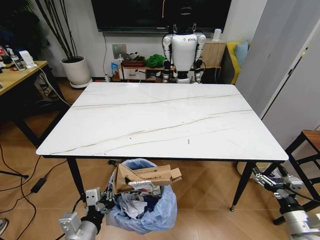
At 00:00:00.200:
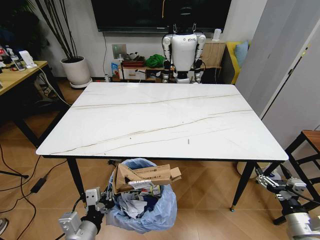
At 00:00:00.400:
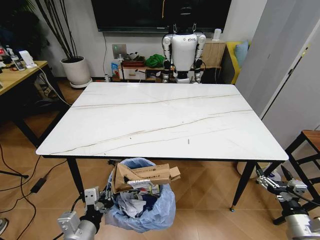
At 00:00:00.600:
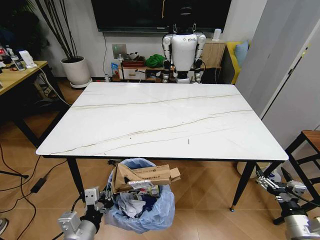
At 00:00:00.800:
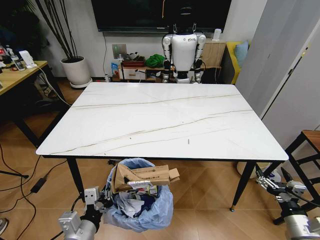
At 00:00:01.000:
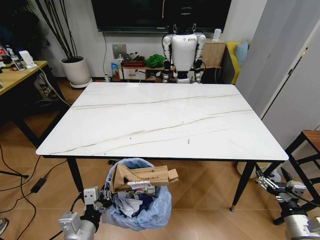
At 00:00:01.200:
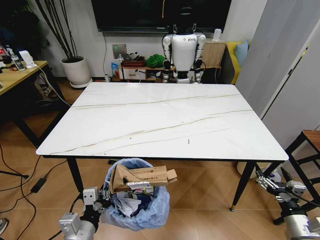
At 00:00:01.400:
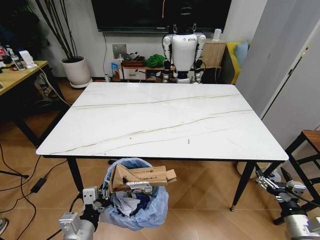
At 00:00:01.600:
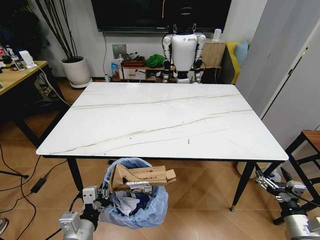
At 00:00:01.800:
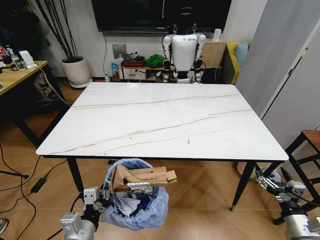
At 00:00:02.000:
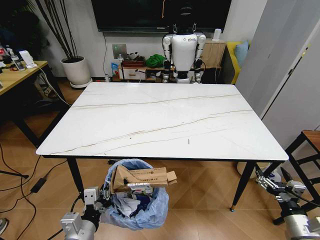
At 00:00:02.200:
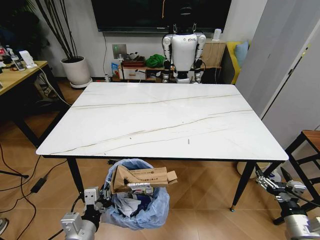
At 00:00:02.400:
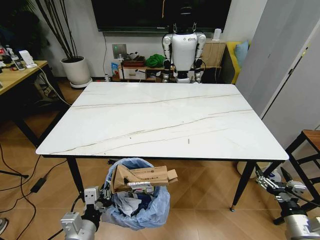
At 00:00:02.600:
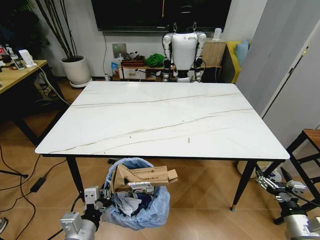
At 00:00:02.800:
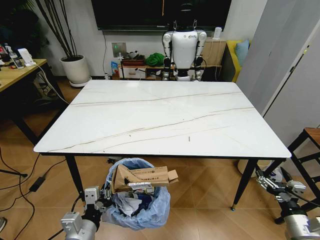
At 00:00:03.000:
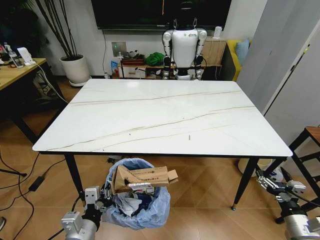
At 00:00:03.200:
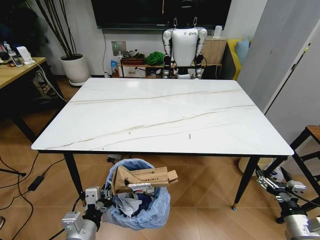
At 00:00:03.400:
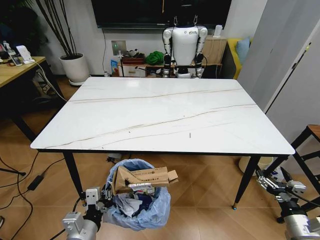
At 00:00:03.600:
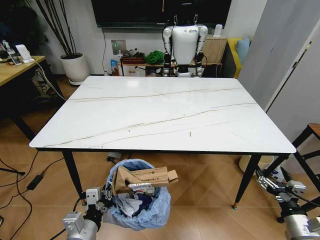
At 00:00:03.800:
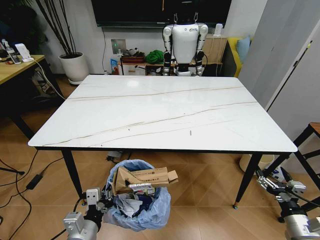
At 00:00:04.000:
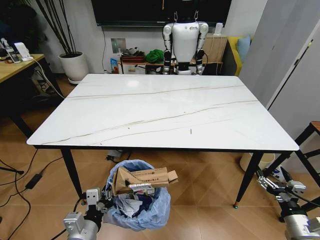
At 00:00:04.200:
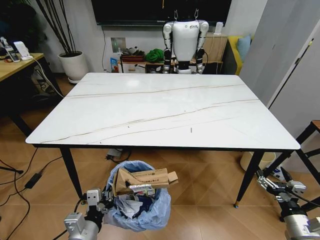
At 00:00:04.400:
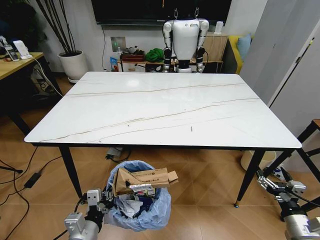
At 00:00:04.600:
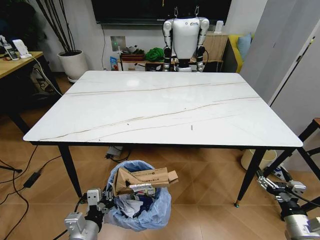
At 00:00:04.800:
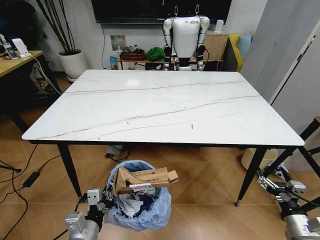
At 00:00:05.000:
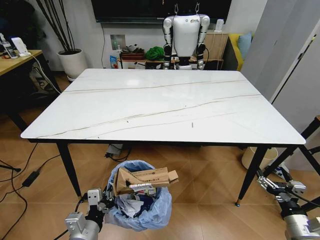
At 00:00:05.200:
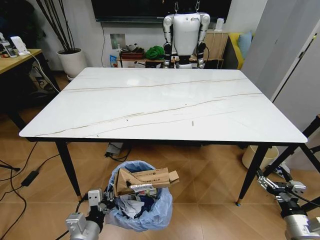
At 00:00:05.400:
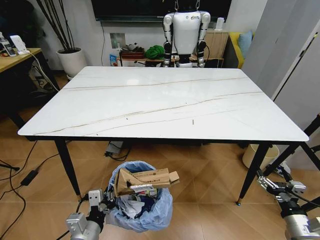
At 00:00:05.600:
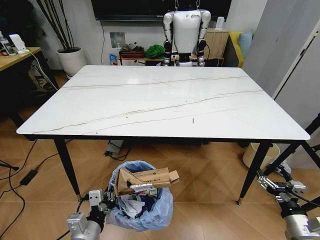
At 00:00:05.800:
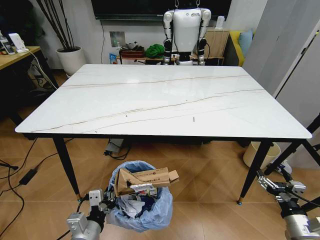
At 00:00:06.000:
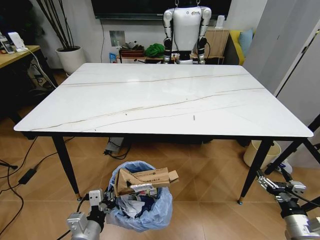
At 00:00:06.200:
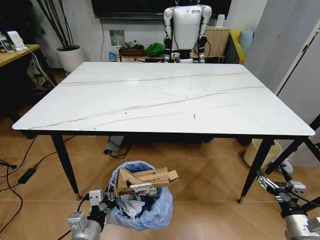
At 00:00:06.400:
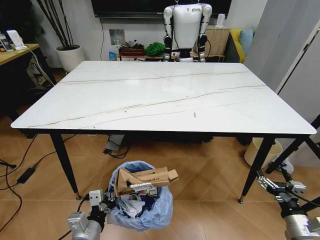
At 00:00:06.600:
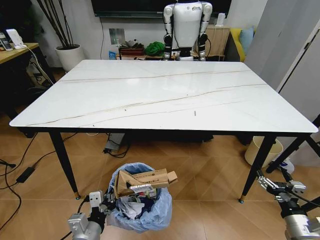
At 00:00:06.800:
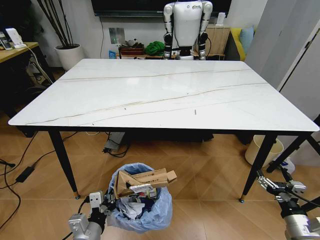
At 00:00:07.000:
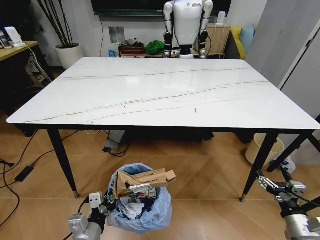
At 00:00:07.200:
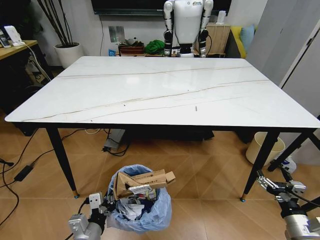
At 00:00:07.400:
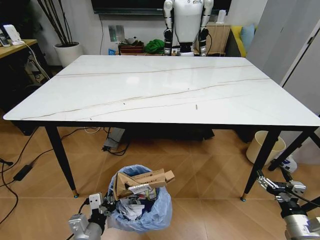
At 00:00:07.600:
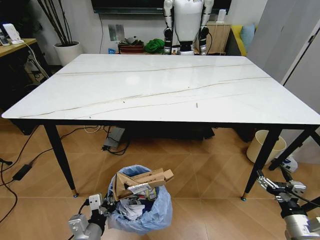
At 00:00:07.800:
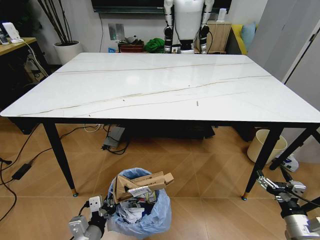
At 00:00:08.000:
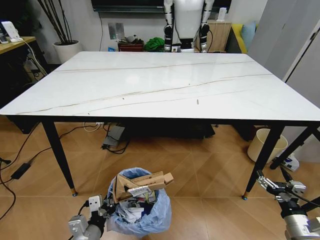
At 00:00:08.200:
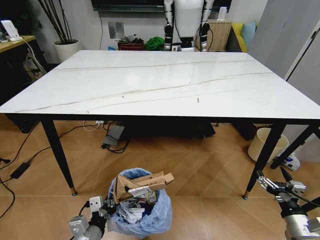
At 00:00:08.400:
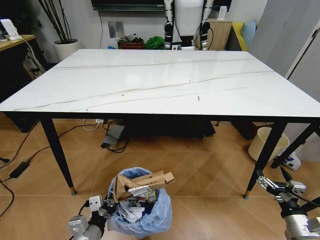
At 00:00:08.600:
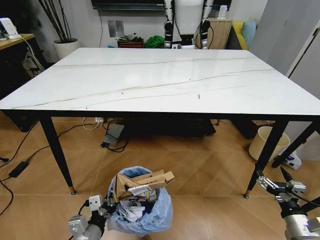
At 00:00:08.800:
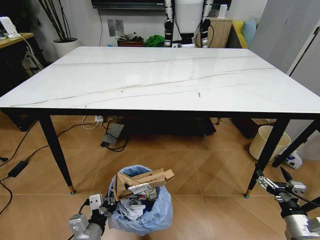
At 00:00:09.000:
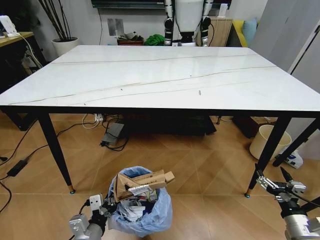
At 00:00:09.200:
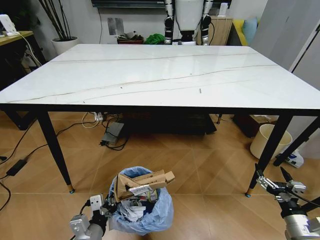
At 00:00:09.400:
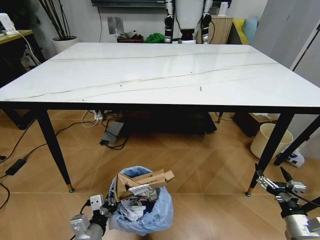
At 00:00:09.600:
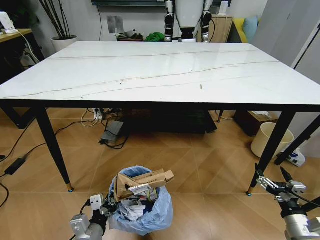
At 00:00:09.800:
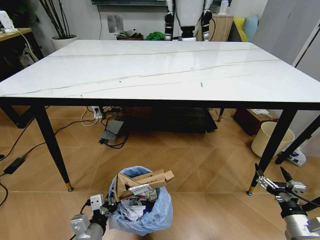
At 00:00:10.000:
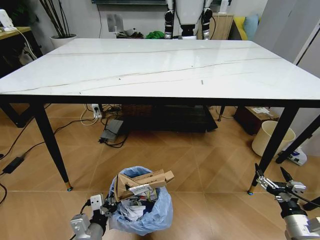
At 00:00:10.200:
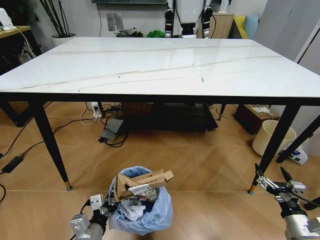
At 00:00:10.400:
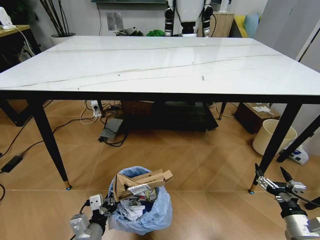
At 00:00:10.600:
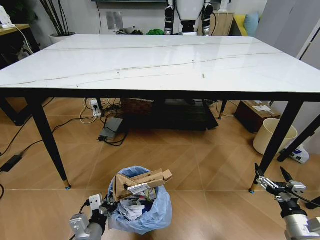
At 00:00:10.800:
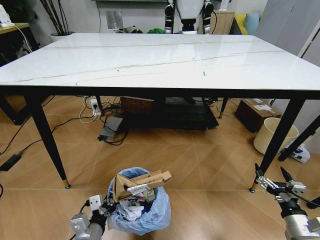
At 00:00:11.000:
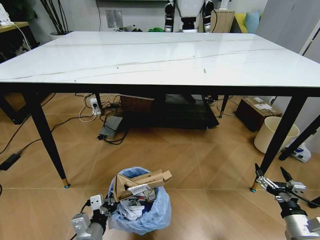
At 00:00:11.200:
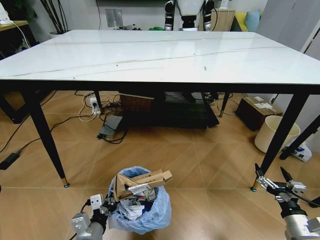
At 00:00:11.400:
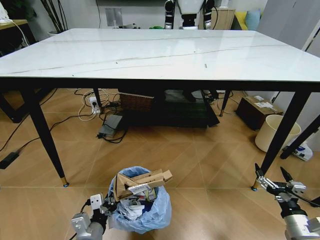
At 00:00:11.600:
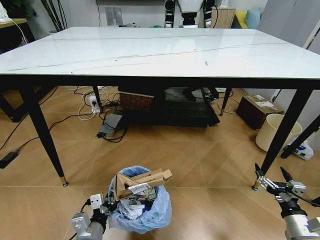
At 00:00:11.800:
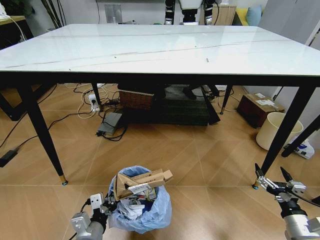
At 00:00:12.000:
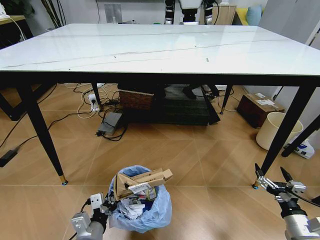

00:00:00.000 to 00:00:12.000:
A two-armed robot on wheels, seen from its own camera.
Task of the whole recording: Pick up the trash bin and place the trash from the table into it.
00:00:00.000 to 00:00:01.600: The grippers stay close to where they were, moving slightly.
00:00:01.600 to 00:00:03.000: Neither gripper changes place.

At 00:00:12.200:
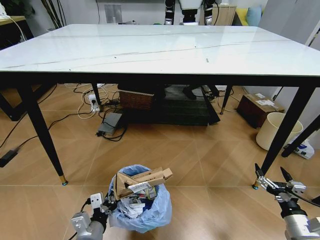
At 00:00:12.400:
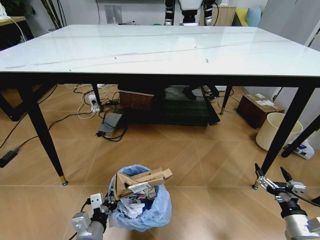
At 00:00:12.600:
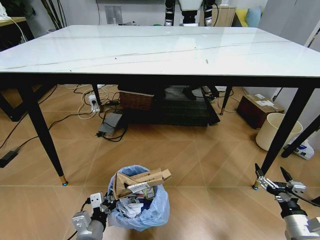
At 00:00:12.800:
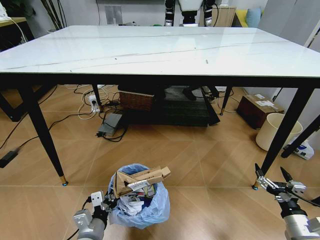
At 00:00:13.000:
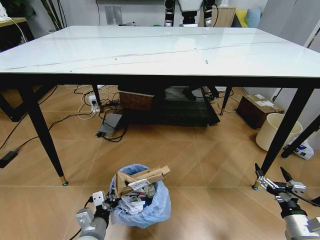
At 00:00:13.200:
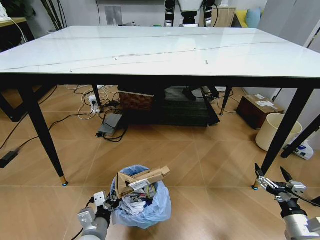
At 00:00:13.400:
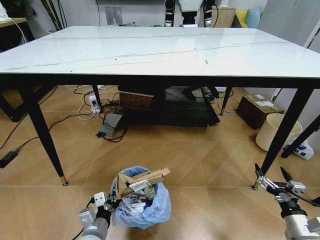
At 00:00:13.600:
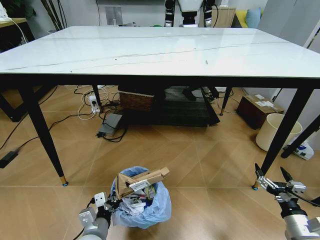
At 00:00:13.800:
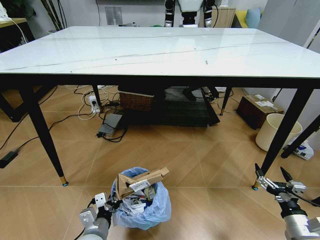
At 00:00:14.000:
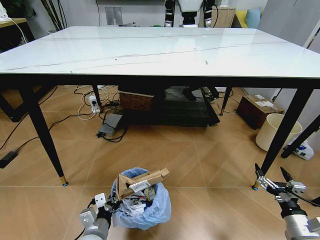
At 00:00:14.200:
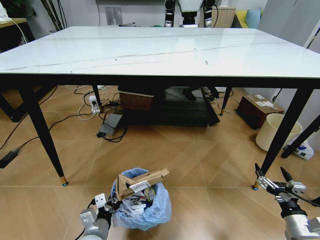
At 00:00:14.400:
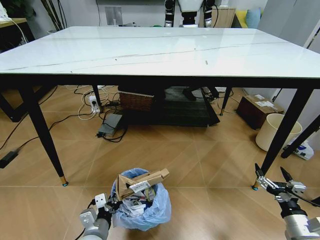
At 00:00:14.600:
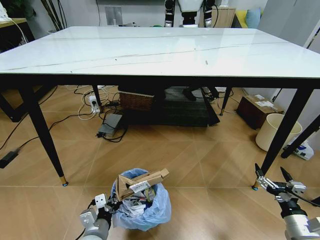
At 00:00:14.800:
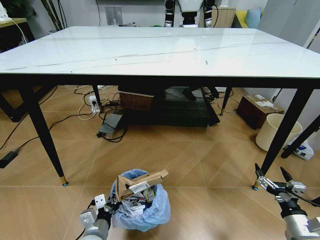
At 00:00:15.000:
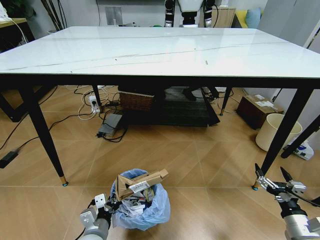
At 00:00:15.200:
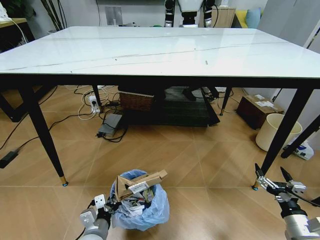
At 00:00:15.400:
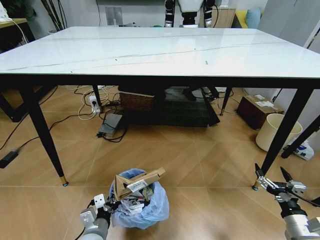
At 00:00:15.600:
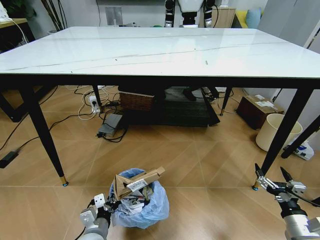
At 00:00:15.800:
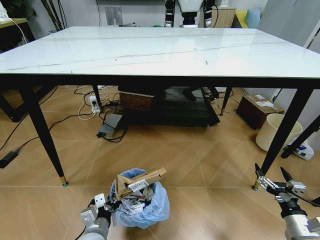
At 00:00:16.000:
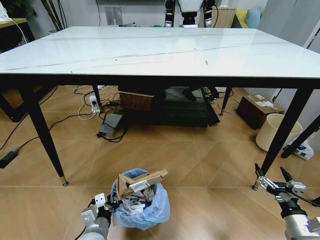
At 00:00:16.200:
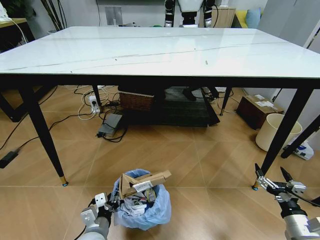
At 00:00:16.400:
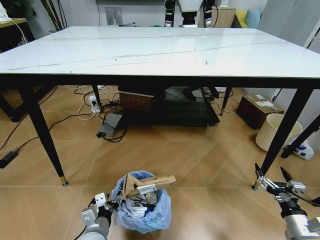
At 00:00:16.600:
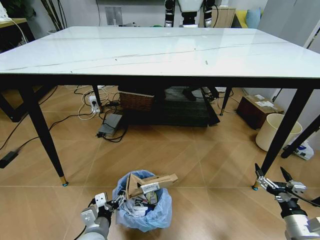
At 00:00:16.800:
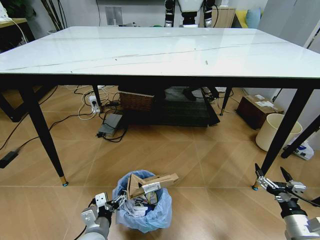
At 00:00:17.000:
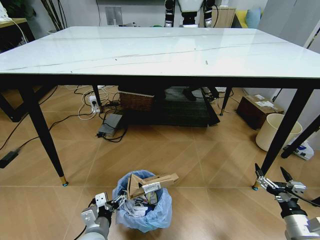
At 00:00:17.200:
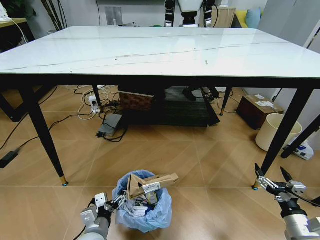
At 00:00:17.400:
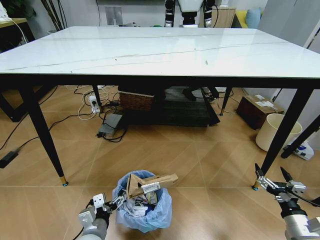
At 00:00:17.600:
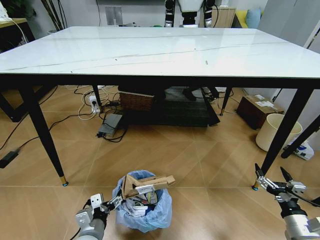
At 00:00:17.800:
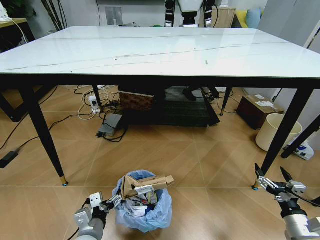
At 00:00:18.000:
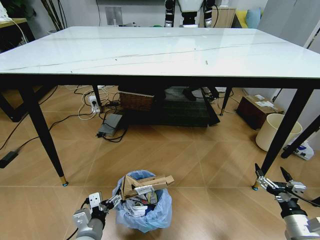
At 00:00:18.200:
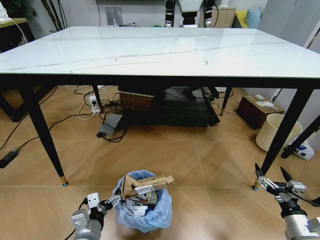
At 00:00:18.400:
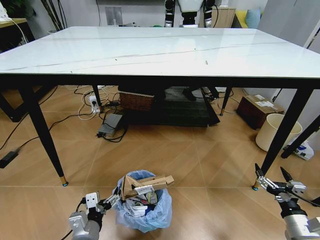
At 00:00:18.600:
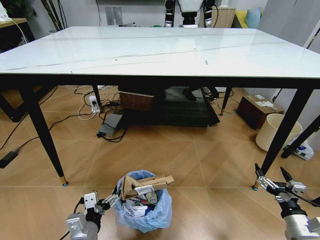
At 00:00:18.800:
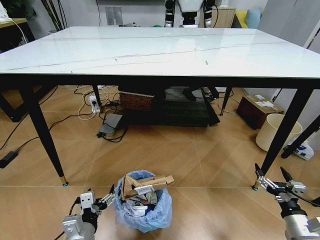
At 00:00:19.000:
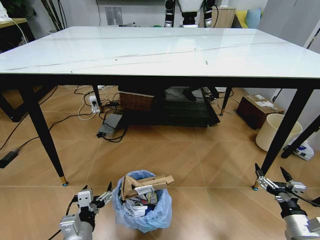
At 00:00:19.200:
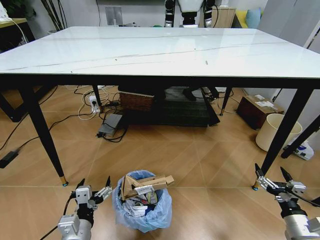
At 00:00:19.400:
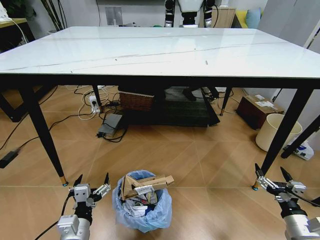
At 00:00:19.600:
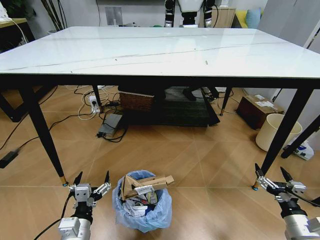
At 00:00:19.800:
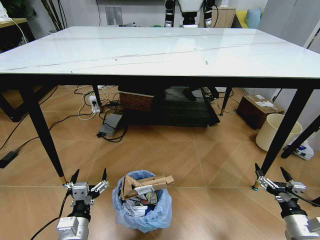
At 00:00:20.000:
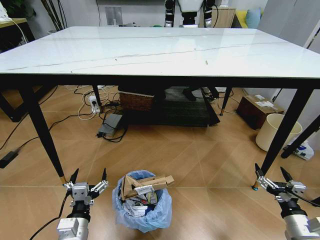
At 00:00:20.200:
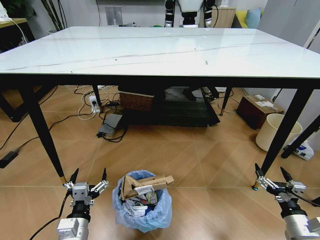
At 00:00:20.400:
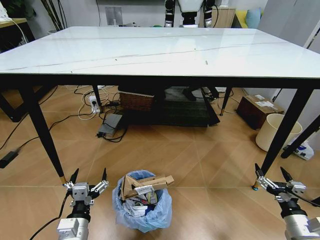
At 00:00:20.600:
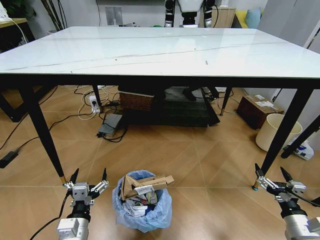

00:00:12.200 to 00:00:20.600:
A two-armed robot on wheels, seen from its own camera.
Task of the whole recording: Pick up the trash bin and place the trash from the table into it.
00:00:12.200 to 00:00:13.600: The grippers make only small movements.
00:00:13.600 to 00:00:15.000: Both grippers stay about where they are.
00:00:15.000 to 00:00:16.400: The left gripper opens up.
00:00:16.400 to 00:00:17.800: The left gripper opens up.
00:00:17.800 to 00:00:19.200: The left gripper moves upward, roughly 5 cm.
00:00:19.200 to 00:00:20.600: The grippers make only small movements.
